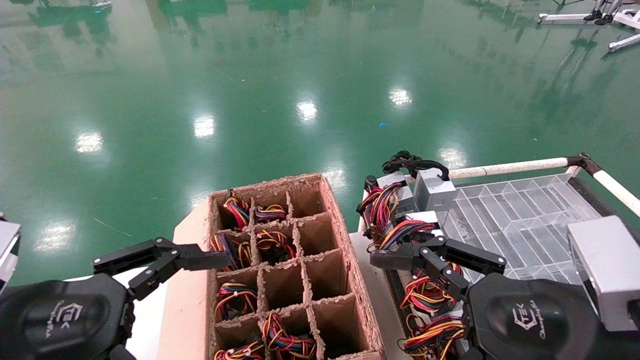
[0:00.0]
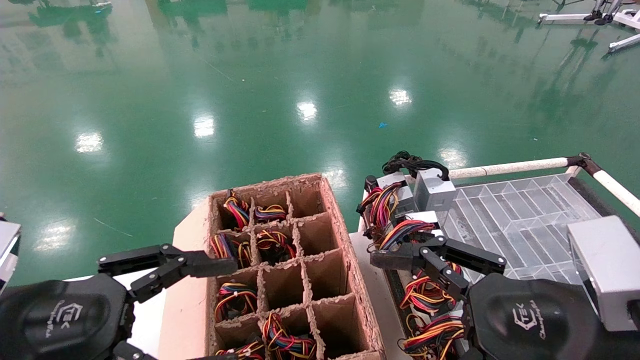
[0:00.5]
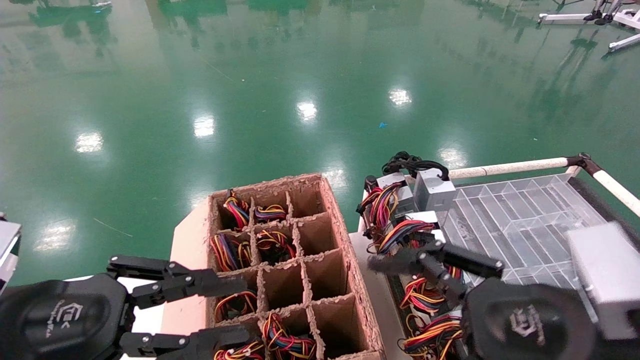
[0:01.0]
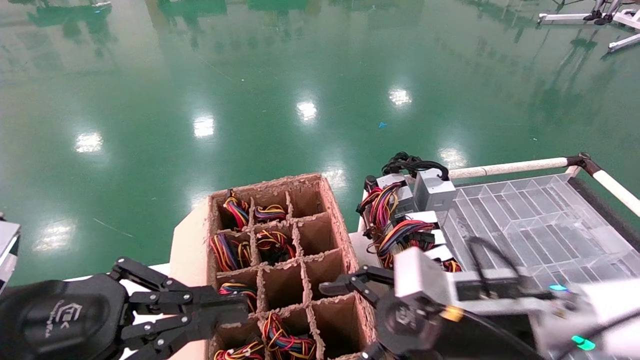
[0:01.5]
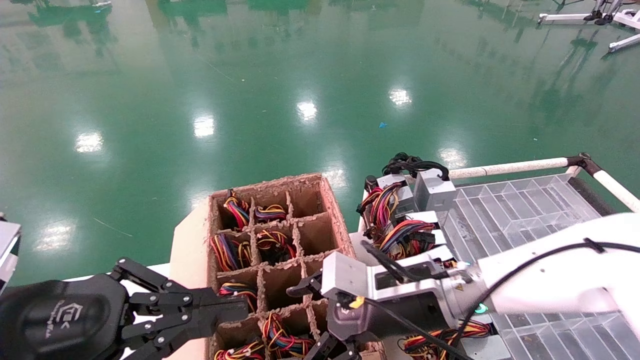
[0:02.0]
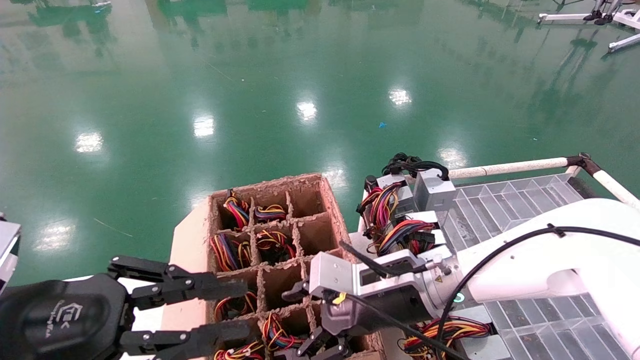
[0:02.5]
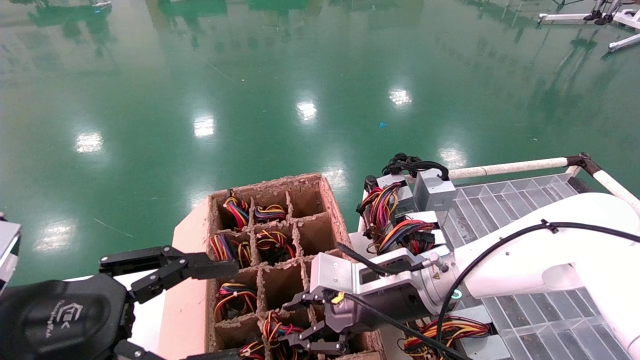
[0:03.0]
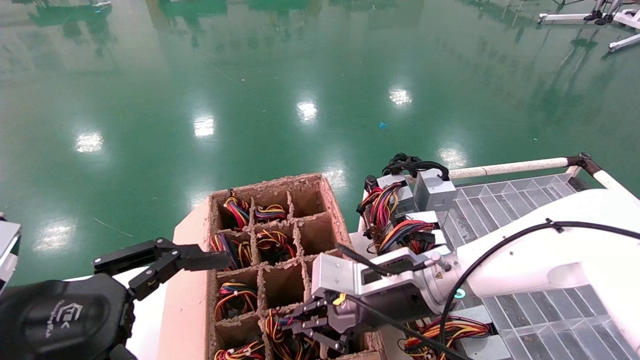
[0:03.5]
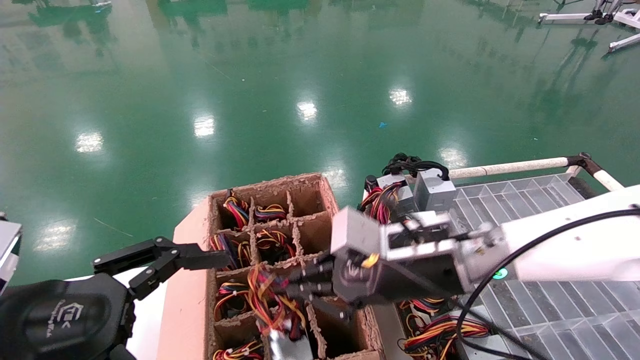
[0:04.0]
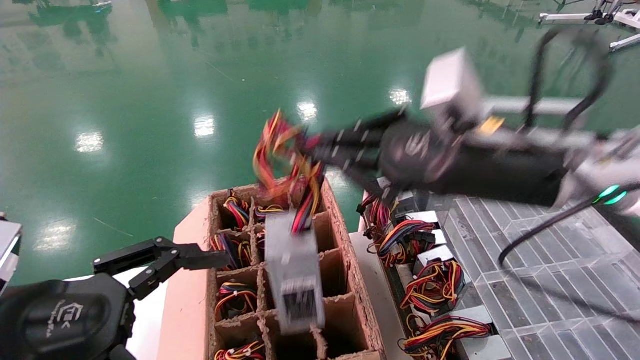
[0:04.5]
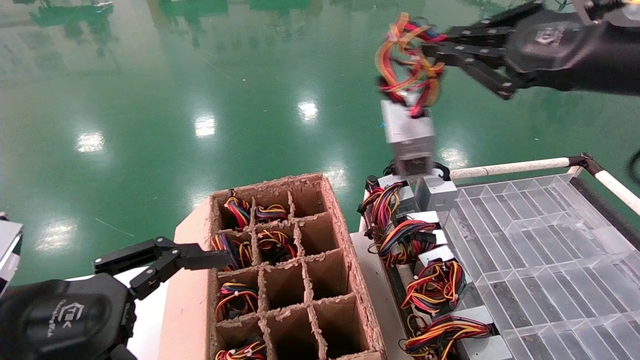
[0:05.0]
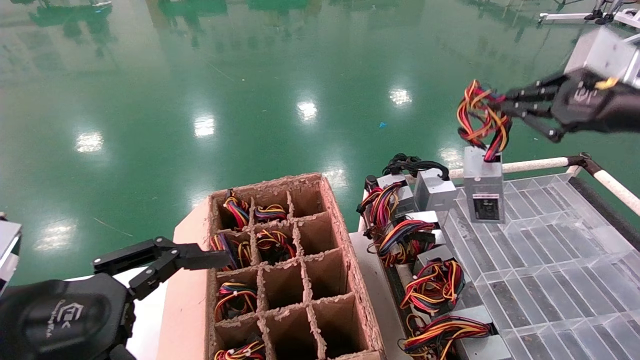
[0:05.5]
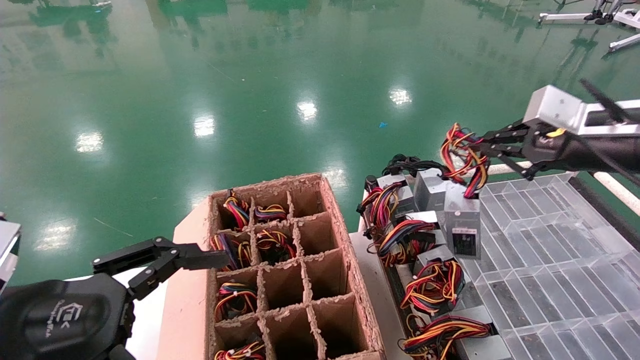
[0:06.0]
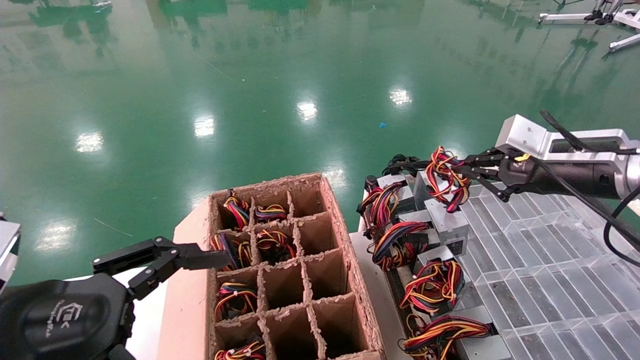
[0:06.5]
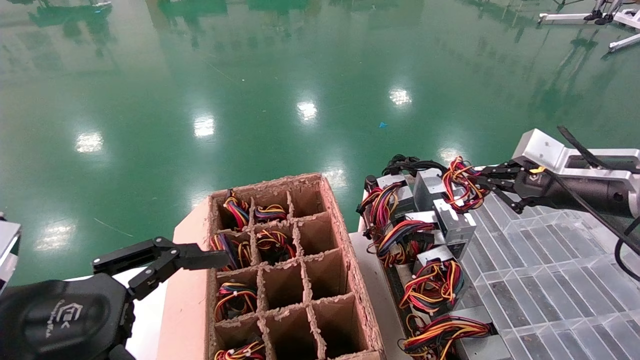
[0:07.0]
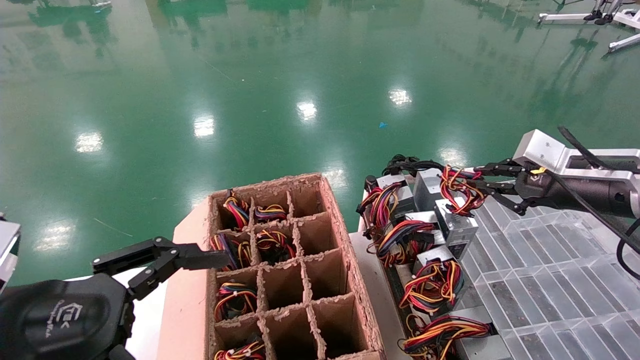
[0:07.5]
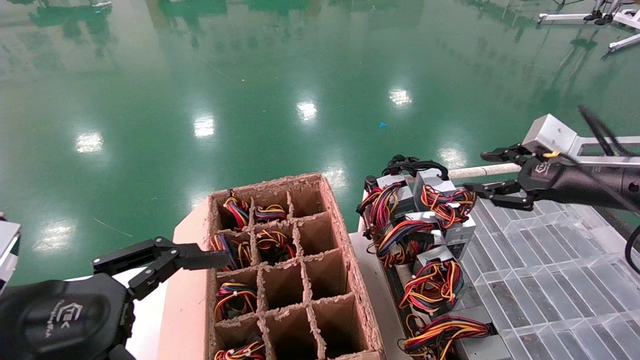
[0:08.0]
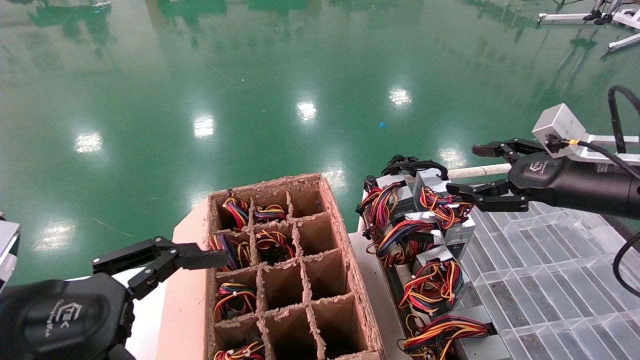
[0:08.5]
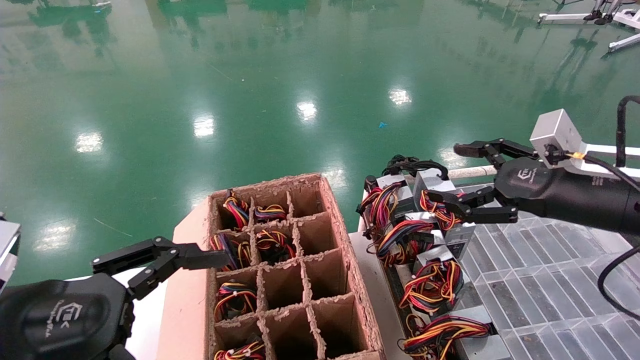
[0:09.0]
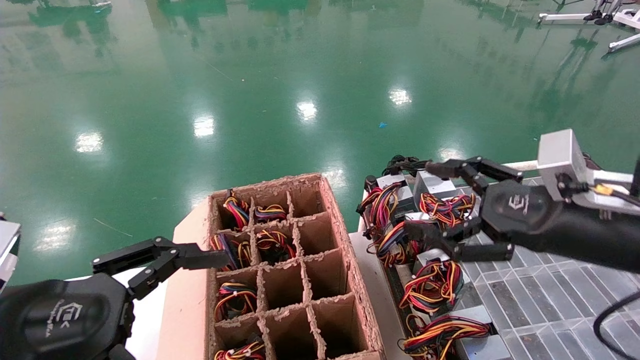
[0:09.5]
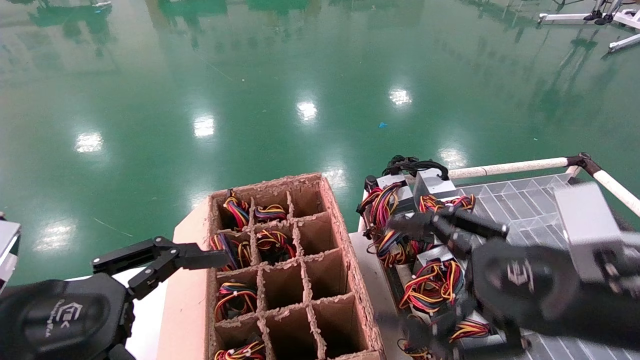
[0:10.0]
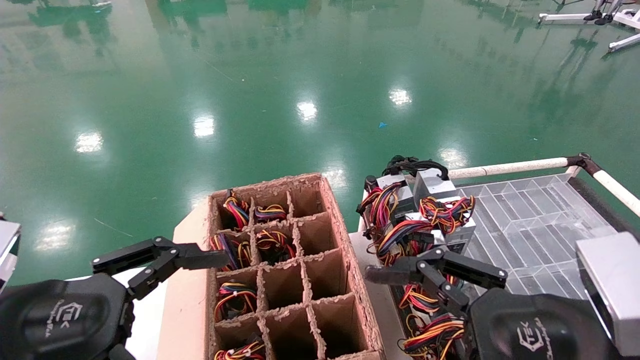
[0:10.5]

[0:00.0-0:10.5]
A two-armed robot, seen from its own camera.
Step, 0:02.0 to 0:03.5: Grab and lift the power supply from the large box.
Step, 0:04.0 to 0:07.0: Place the power supply on the operating table.
0:00.0 to 0:02.0: The left gripper closes up. The right gripper is displaced forward and to the left by approximately 20 cm.
0:02.0 to 0:04.0: The right gripper moves upward, about 5 cm, and closes its fingers; the left gripper opens.
0:04.0 to 0:06.5: The right gripper travels to the right by some 25 cm.
0:06.5 to 0:08.5: The right gripper opens.
0:08.5 to 0:10.5: The right gripper heads backward, to the left and downward, covering roughly 25 cm.
